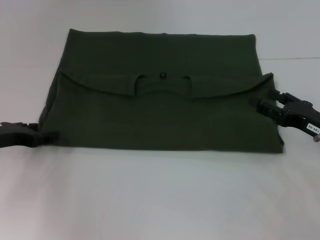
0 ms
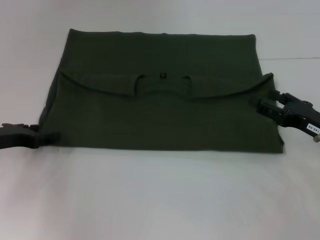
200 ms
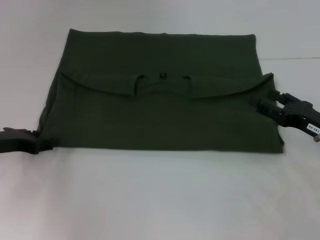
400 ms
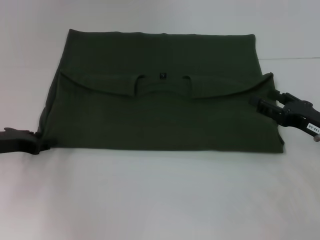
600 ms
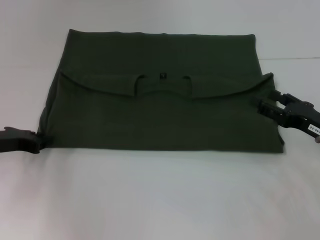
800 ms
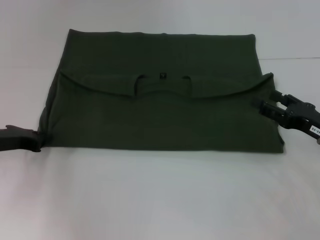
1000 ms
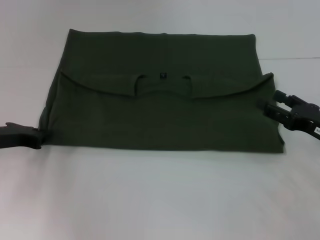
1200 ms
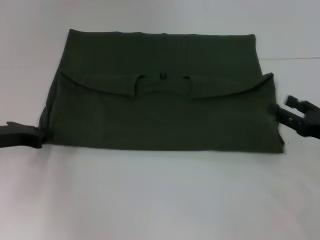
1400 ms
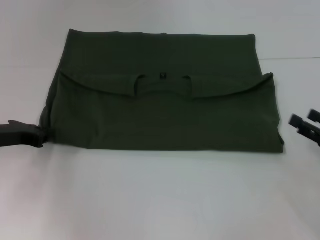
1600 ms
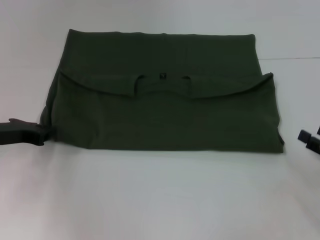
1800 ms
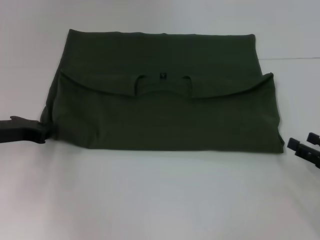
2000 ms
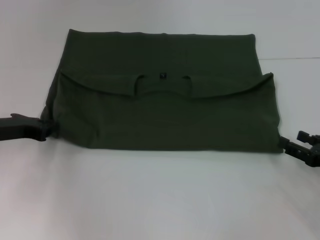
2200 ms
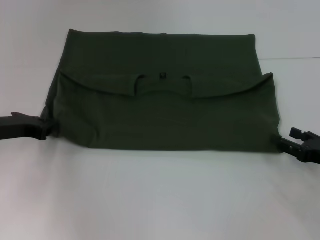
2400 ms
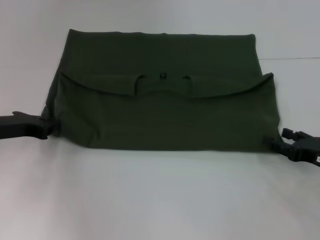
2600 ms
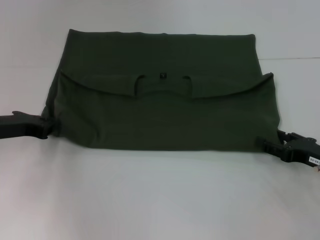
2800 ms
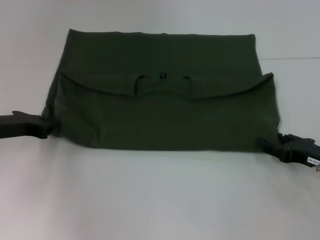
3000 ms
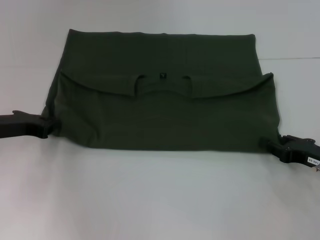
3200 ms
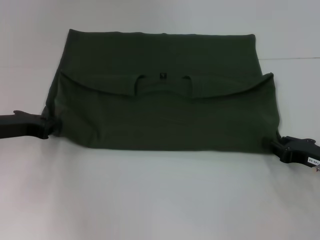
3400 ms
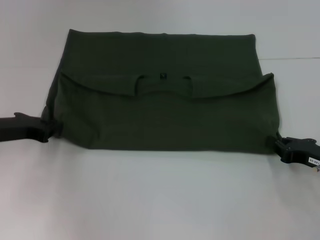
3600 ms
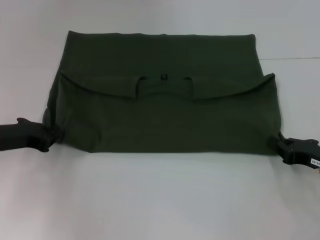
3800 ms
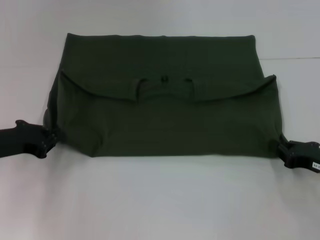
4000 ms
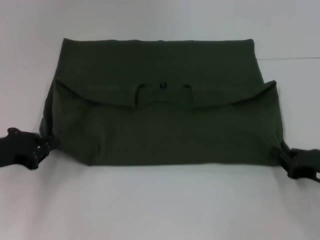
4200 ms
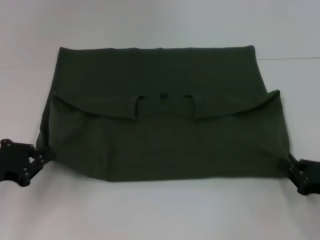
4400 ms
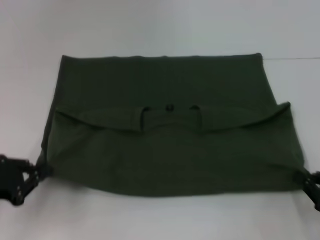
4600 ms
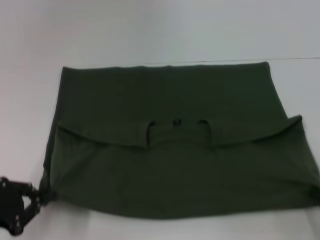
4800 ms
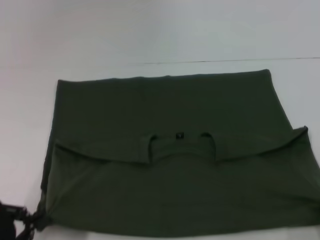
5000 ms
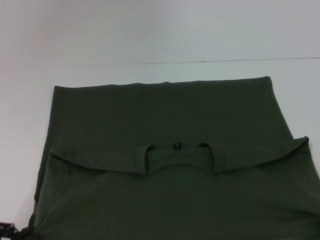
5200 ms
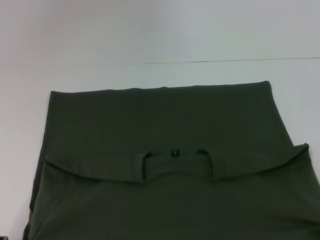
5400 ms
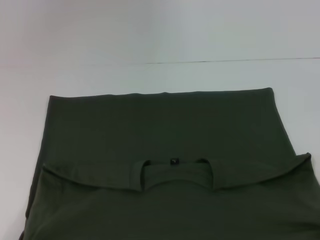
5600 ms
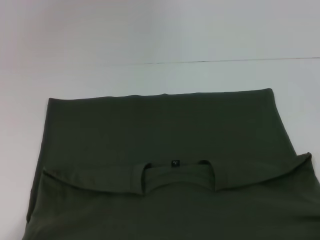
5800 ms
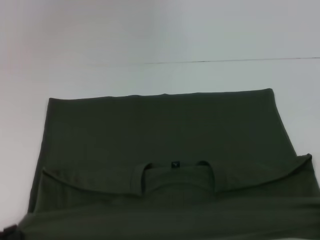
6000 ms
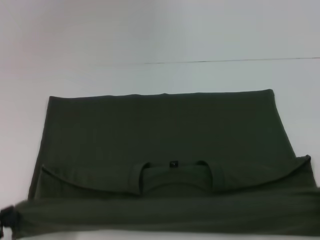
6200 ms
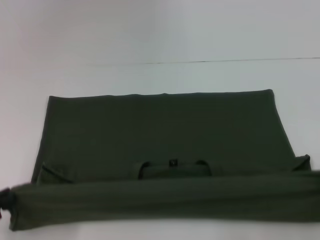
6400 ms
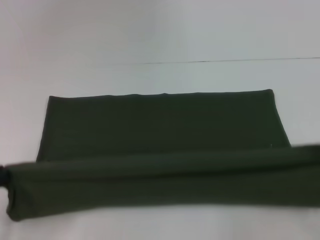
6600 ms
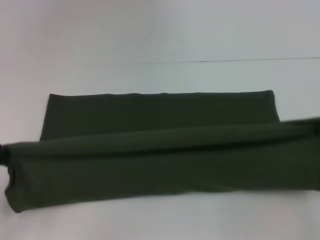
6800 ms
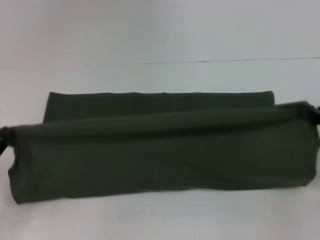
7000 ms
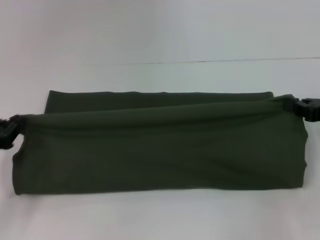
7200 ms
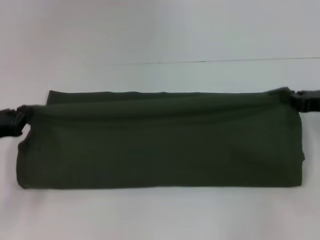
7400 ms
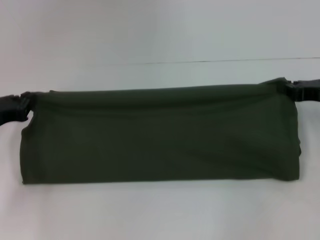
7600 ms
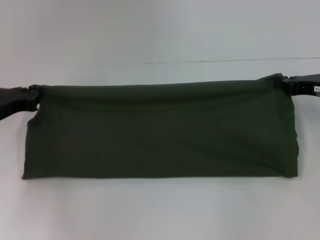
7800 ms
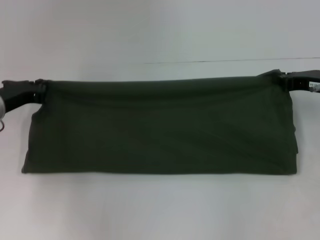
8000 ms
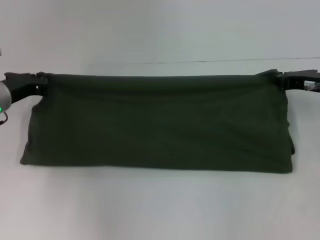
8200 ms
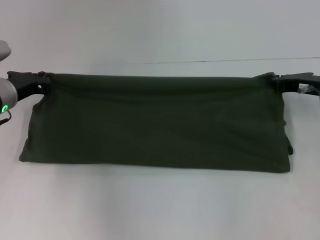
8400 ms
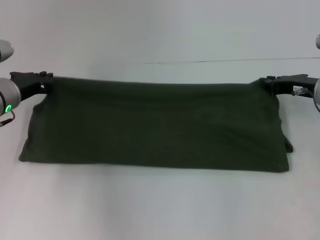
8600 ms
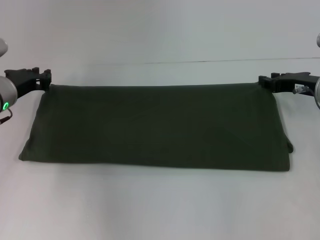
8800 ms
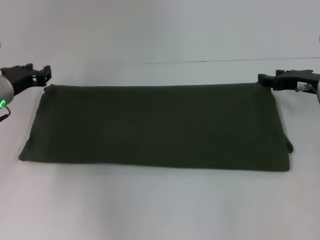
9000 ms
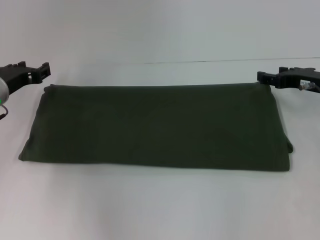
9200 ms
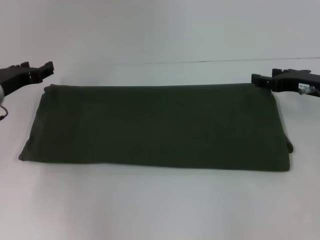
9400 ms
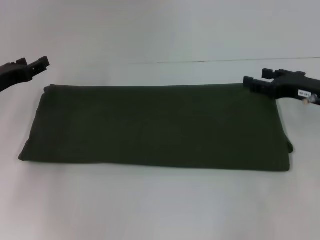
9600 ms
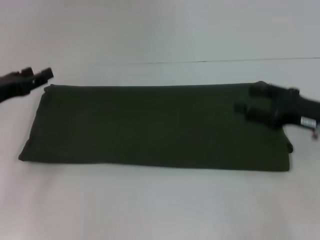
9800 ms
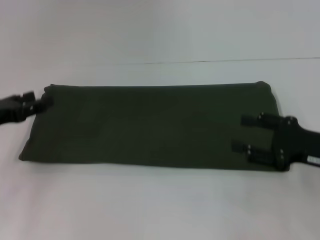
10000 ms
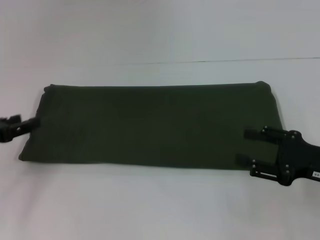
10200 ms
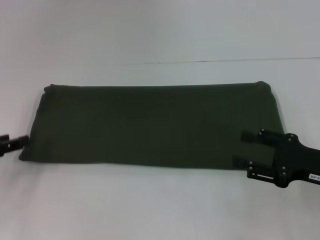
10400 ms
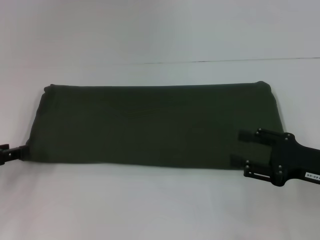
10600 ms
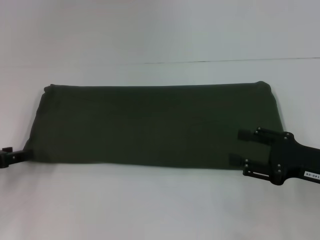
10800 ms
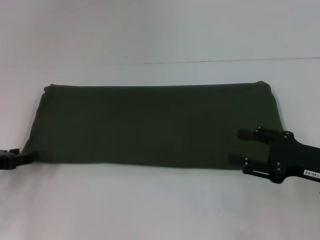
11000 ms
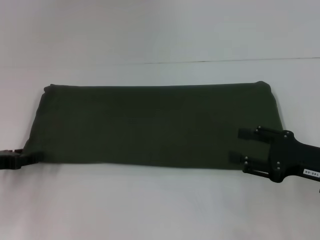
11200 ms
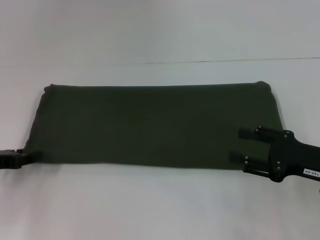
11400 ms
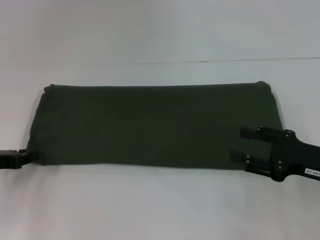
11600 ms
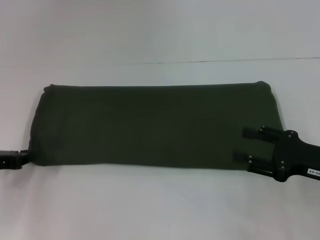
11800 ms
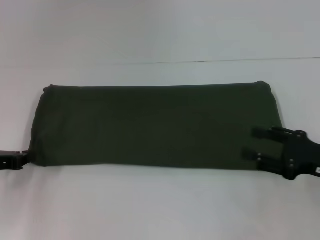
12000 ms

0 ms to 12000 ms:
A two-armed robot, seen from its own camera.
Step, 0 ms to 5000 ms: Pull the clothes with your left hand.
Step, 0 ms to 5000 ms: Pull the clothes with your right hand.
Step, 5200 ms to 9000 ms: Fold the clothes with your left hand.
Step, 5200 ms to 9000 ms: Fold the clothes with your right hand.
0 ms to 1600 ms: The right gripper moves to the right, some 5 cm.
1600 ms to 3000 ms: The right gripper moves approximately 5 cm.
3000 ms to 4400 ms: The two grippers go approximately 5 cm backward. The right gripper closes.
4400 ms to 6000 ms: The right gripper goes about 10 cm backward and to the right. Meanwhile the left gripper shifts about 15 cm backward.
6000 ms to 7600 ms: Both grippers travel together forward, approximately 20 cm.
7600 ms to 9000 ms: The left gripper heads forward and to the right, covering some 10 cm. Meanwhile the right gripper ends up about 5 cm from where it was.
9000 ms to 10400 ms: The right gripper goes some 15 cm backward, and opens its fingers, while the left gripper goes approximately 15 cm backward and to the left, and opens.
10400 ms to 12000 ms: The left gripper closes its fingers.

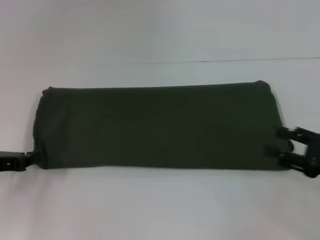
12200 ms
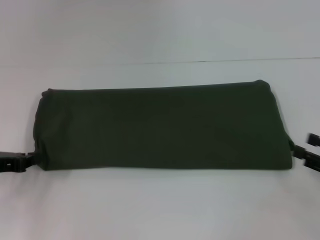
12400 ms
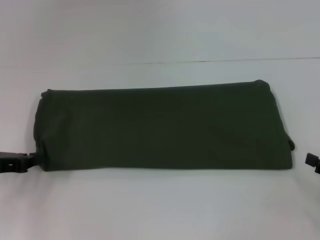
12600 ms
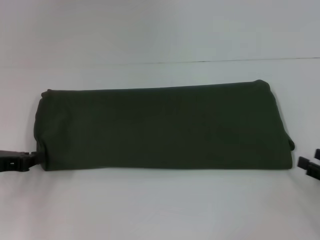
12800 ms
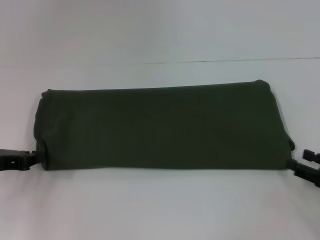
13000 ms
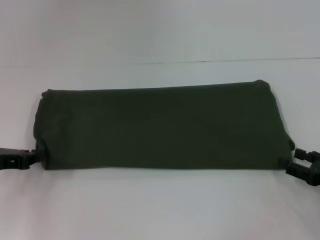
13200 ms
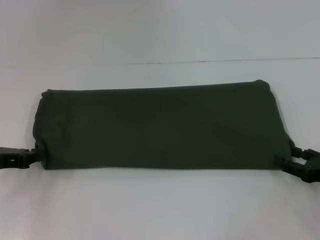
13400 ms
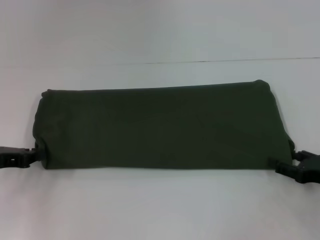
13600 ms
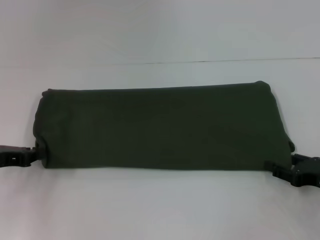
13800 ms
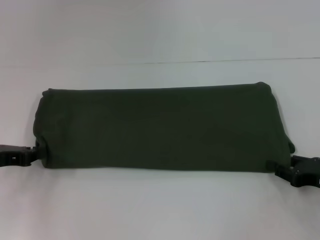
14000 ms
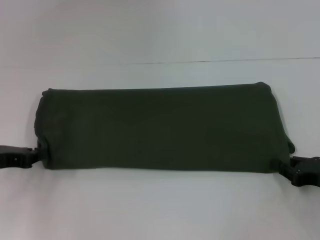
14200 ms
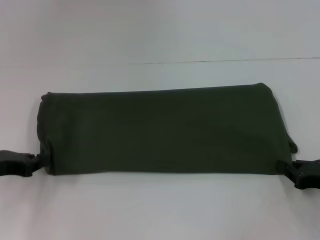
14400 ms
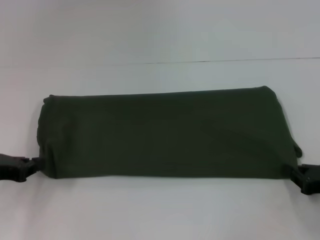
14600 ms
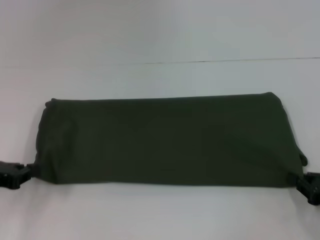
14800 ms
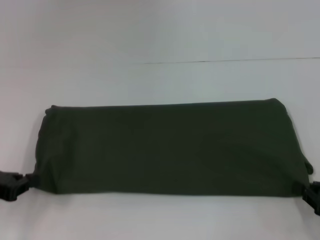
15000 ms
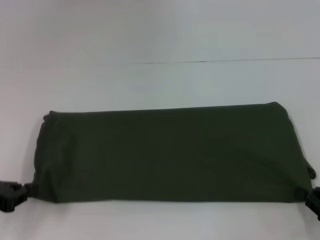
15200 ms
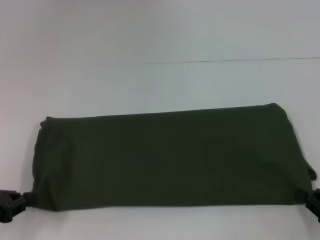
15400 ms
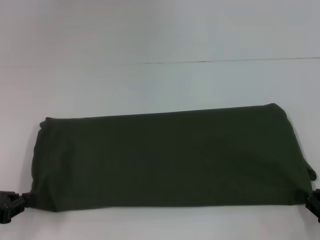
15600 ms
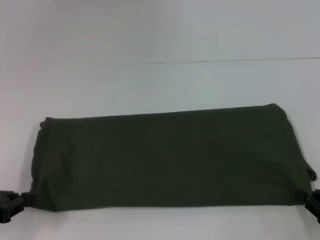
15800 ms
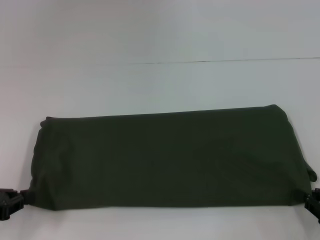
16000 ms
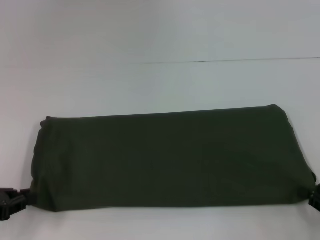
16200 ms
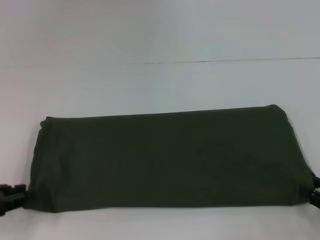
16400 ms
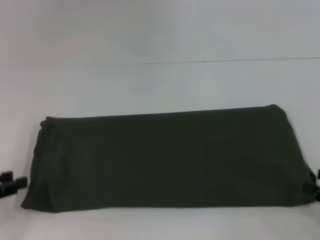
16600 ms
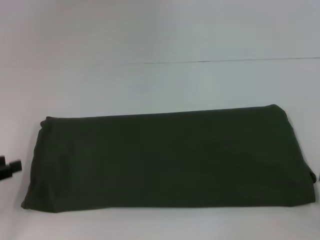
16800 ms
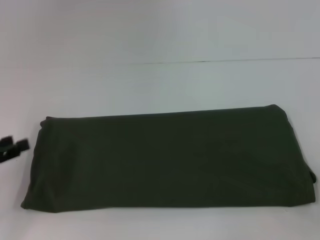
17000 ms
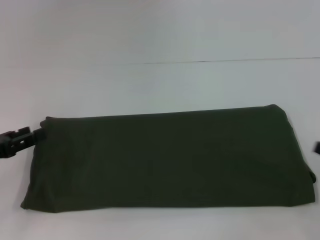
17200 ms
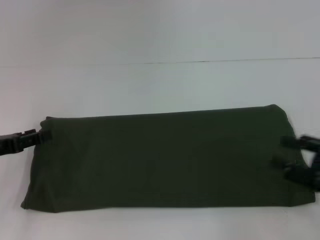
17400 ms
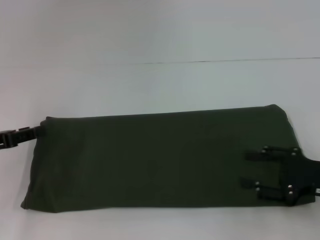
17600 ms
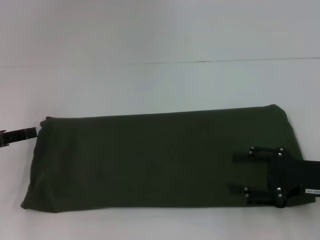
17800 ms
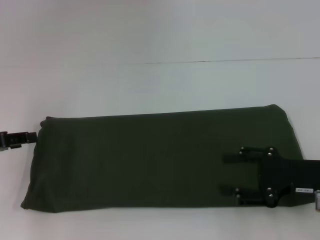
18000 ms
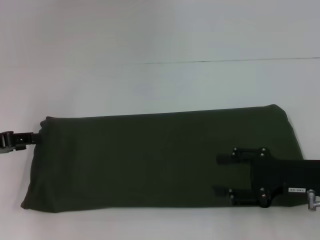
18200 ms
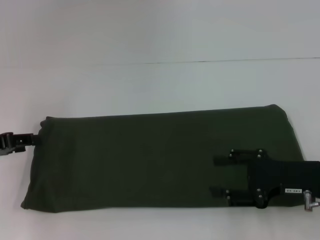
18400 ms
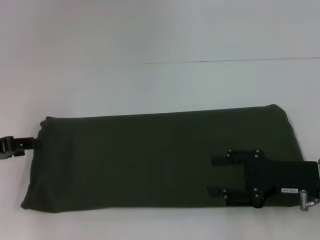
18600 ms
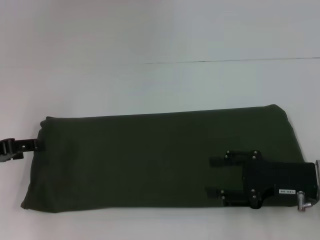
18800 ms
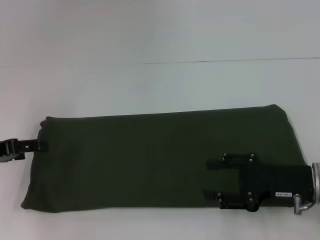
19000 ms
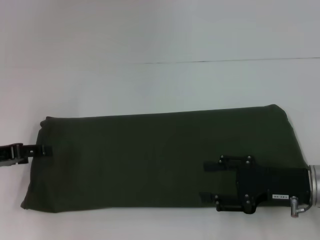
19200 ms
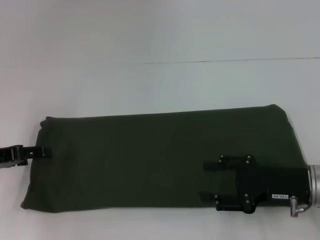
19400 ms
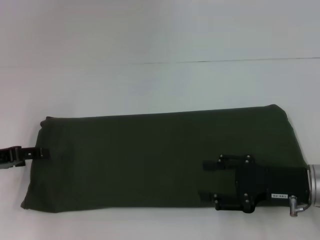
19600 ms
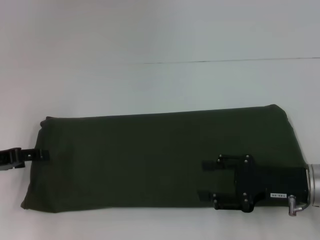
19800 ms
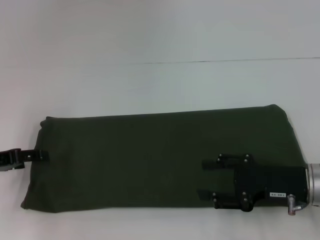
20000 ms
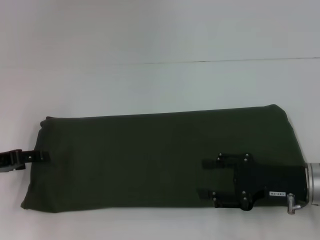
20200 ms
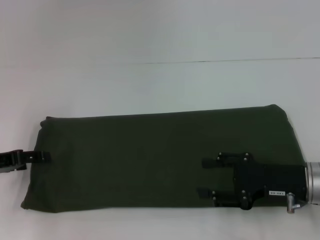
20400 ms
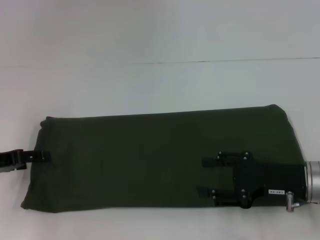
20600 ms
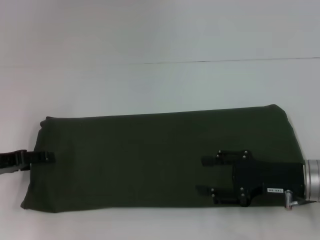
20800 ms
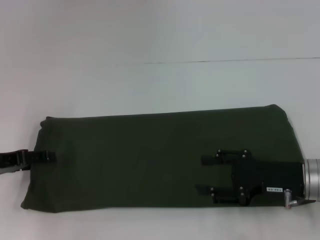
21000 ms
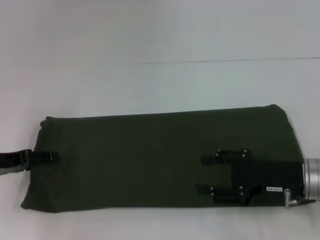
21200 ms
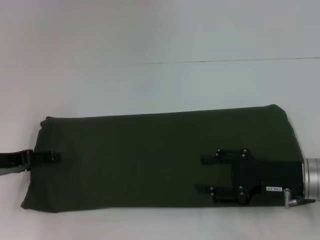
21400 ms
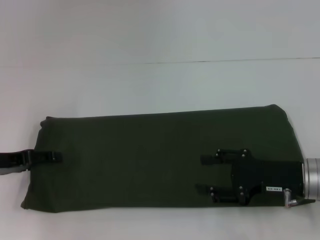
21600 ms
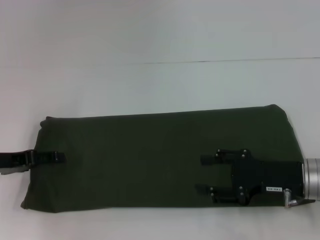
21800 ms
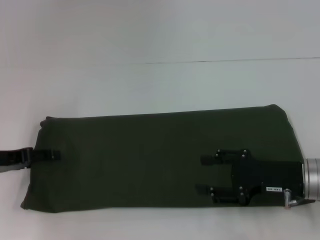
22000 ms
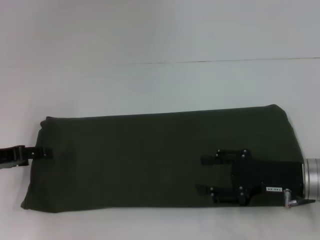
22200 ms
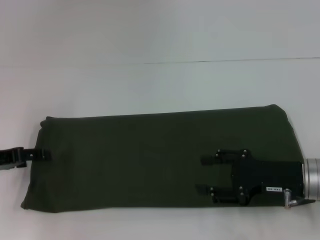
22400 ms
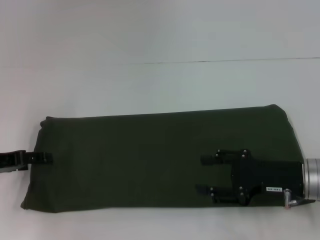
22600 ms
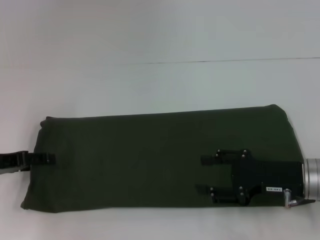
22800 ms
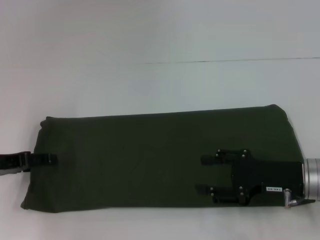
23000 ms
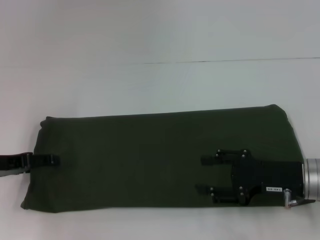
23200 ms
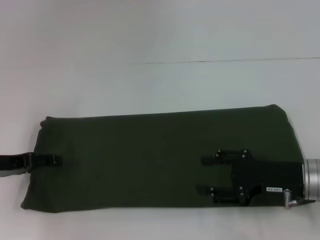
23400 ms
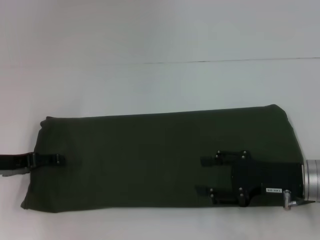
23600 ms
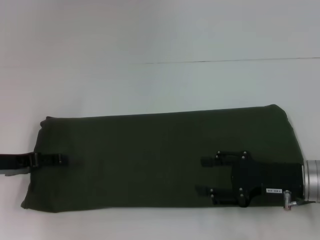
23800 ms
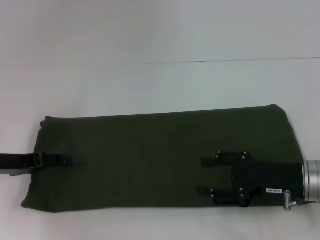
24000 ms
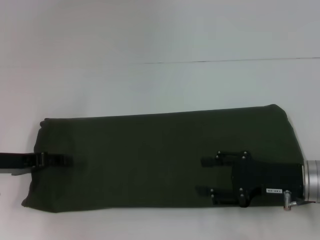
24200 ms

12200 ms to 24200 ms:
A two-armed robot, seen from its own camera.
Step, 12200 ms to 15800 ms: Pull the clothes with your left hand.
Step, 12200 ms to 15800 ms: Pull the clothes with your right hand.
12200 ms to 13800 ms: The right gripper moves about 5 cm.
13800 ms to 15200 ms: Both grippers move backward, about 5 cm. The right gripper closes up.
15200 ms to 16600 ms: The left gripper opens. The right gripper opens.
16600 ms to 18200 ms: The left gripper travels forward by roughly 5 cm. The right gripper moves to the left and forward, some 15 cm, and opens up.
18200 ms to 19800 ms: The grippers make only small movements.
19800 ms to 21200 ms: Both grippers stay put.
21200 ms to 22600 ms: Both grippers stay put.
22600 ms to 24200 ms: The grippers move only a little.
